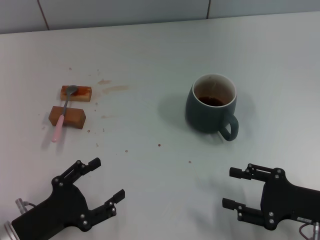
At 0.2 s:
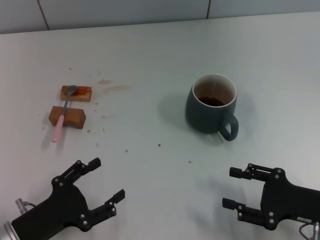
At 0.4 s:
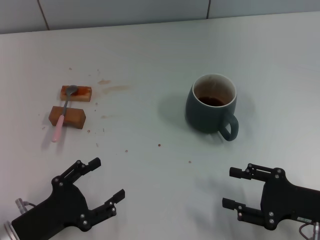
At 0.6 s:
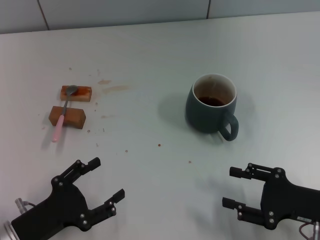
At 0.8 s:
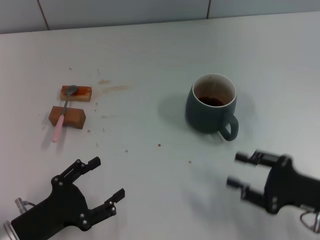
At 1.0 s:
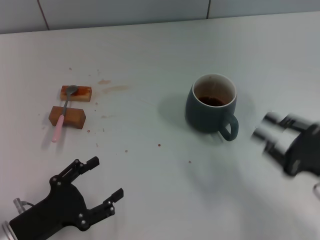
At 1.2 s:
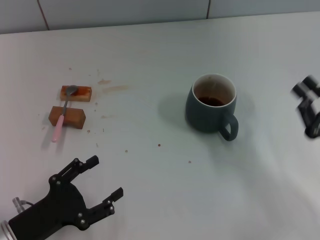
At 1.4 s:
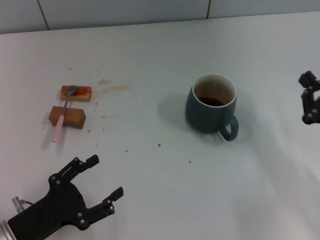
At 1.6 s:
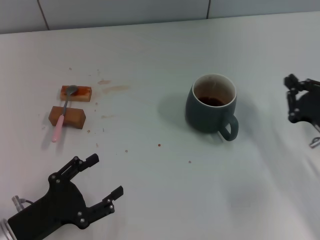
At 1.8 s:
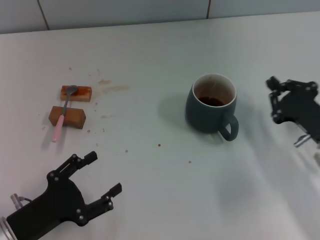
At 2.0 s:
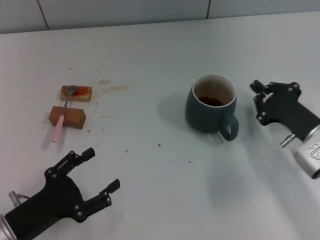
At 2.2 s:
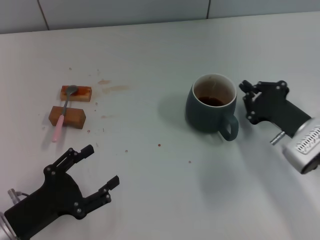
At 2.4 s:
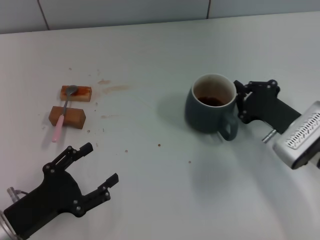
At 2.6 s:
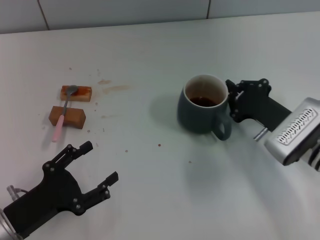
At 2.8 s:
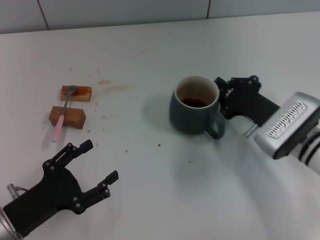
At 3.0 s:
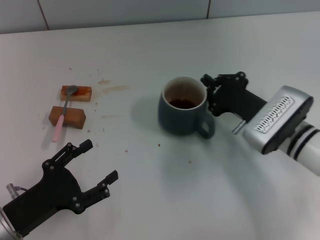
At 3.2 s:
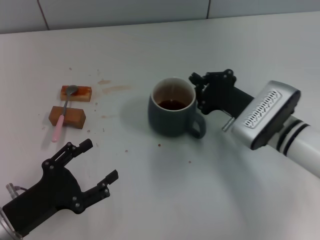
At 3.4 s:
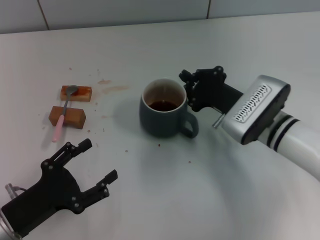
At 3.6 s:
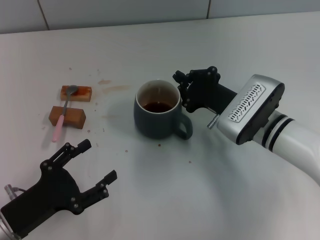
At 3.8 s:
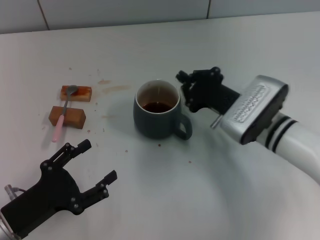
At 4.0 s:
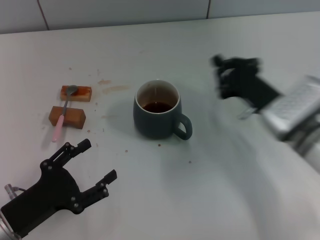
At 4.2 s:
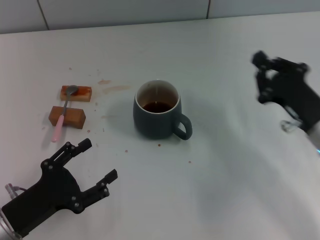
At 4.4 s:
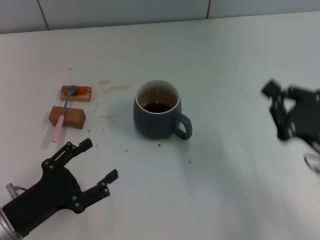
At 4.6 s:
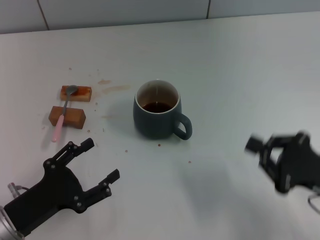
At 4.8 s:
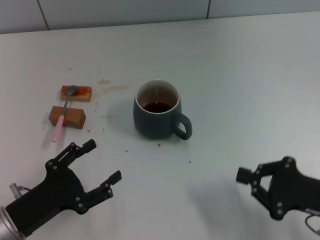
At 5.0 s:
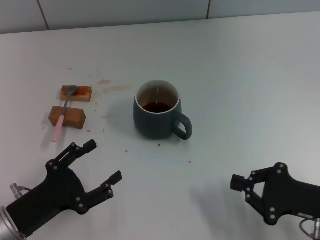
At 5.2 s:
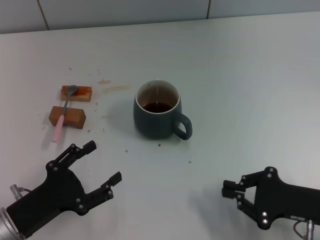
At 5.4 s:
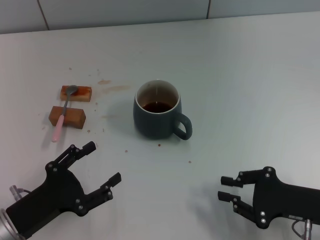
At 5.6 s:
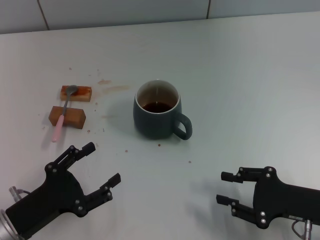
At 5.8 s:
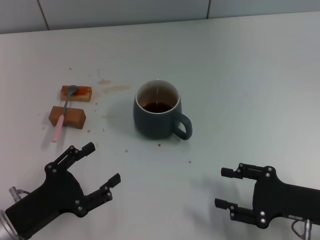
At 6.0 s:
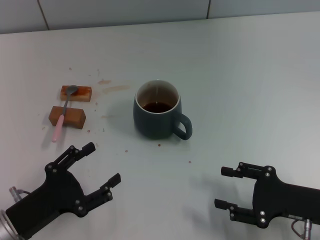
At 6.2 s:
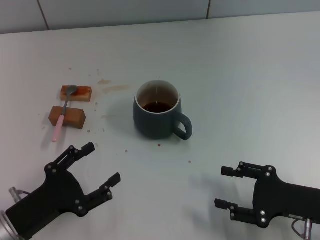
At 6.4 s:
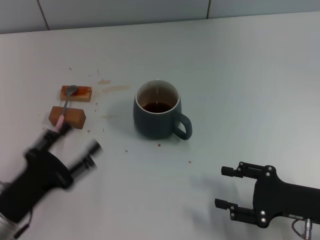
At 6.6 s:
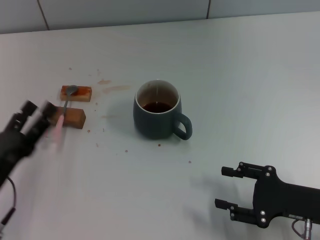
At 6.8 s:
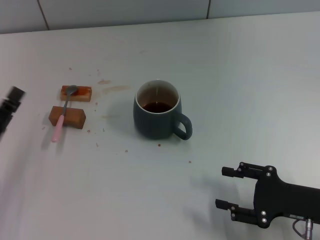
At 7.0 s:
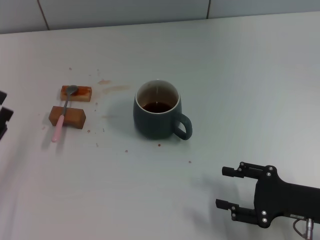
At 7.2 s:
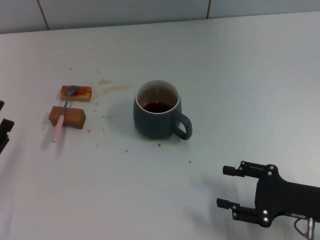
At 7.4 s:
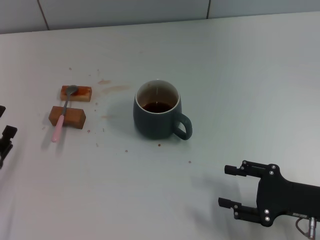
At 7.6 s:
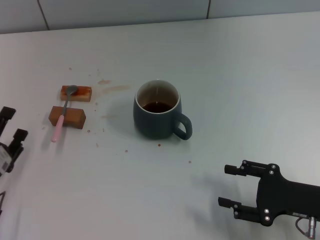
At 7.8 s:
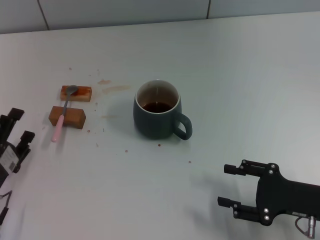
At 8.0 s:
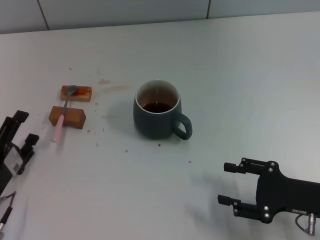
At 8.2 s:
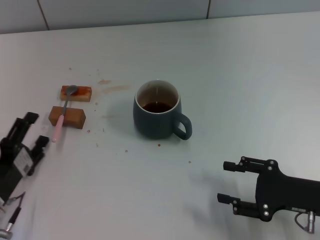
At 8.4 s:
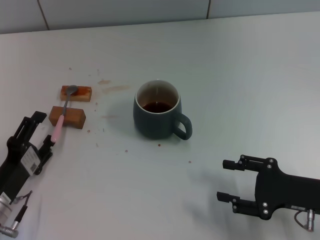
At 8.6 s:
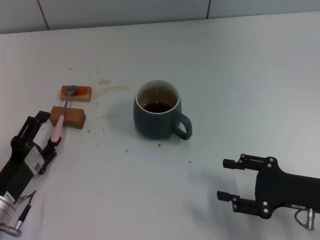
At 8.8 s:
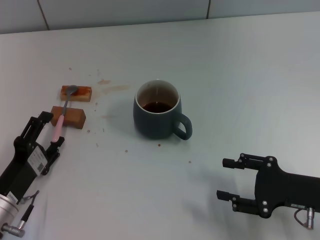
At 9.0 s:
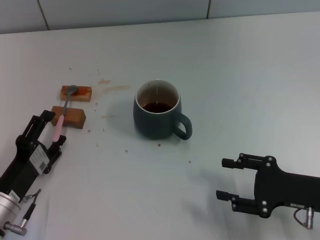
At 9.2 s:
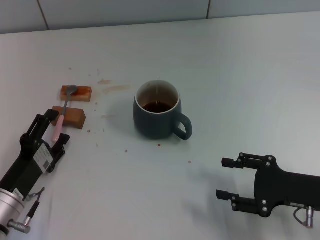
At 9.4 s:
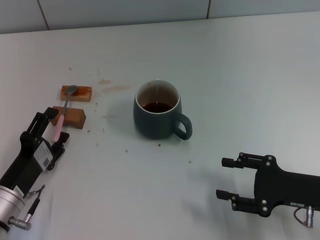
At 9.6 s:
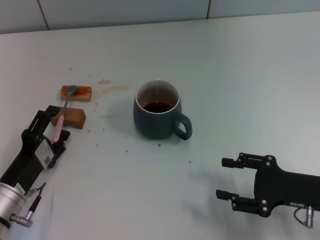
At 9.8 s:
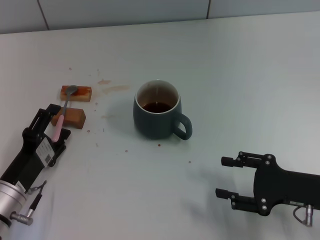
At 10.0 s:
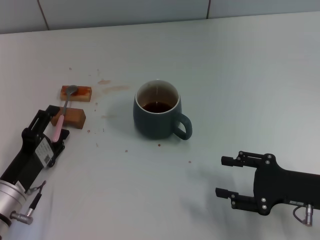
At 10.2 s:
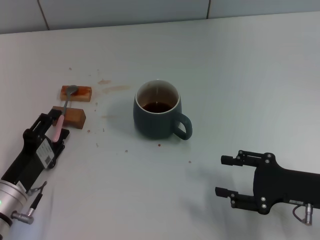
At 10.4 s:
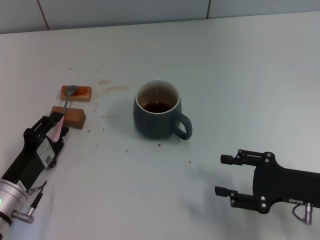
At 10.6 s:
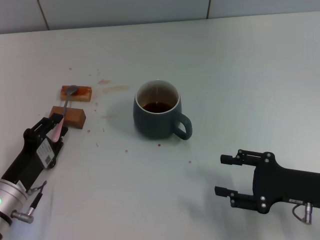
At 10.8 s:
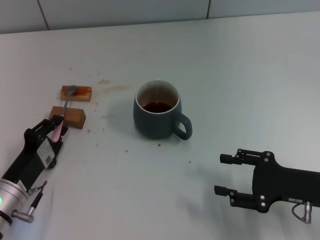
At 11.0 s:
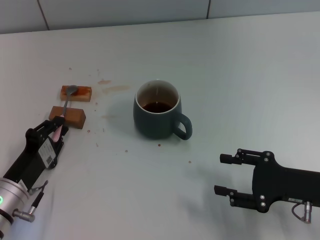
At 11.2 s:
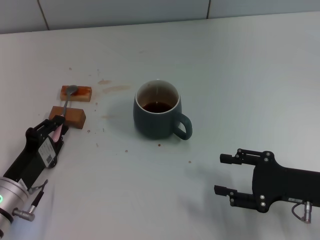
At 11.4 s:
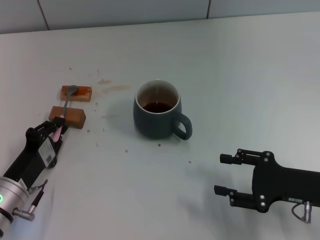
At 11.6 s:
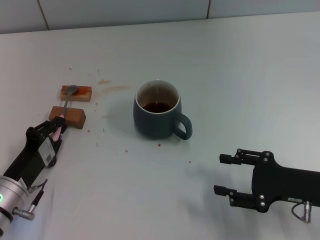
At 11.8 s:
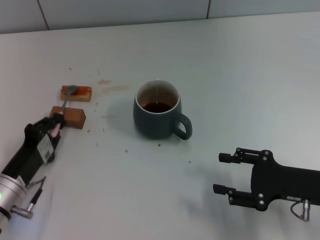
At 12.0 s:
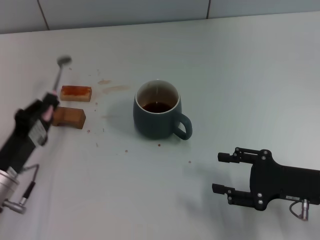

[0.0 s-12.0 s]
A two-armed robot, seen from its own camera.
Task of the whole recording: Move the grey cup to the center, lift the pink spoon, stir it three times in the cup, and put the spoon into the cup.
Step, 0.0 to 3.8 s: Move the cup with coffee to the center of view with the right gripper.
Step, 4.0 to 11.8 s: Pick up the spoon with the left gripper.
0.0 to 1.6 s: The right gripper is displaced forward by approximately 5 cm, and closes.
1.6 to 3.0 s: The right gripper shifts approximately 10 cm to the left and forward.
3.0 to 4.4 s: The right gripper heads backward and to the right, covering about 15 cm.
4.4 to 6.0 s: The right gripper opens up.
7.6 to 10.4 s: The grippers stay close to where they were, moving slightly.
10.4 to 12.0 s: The left gripper closes its fingers.

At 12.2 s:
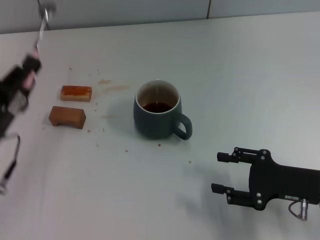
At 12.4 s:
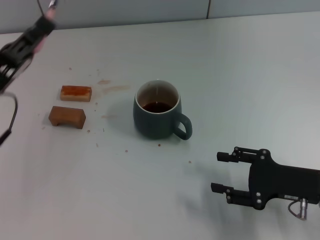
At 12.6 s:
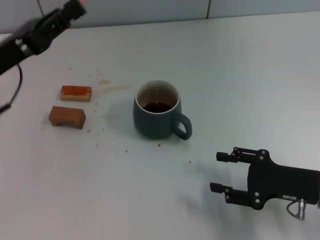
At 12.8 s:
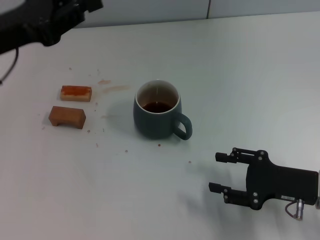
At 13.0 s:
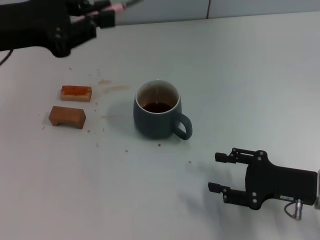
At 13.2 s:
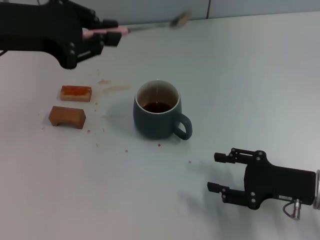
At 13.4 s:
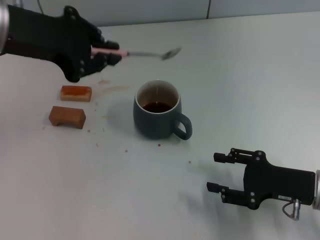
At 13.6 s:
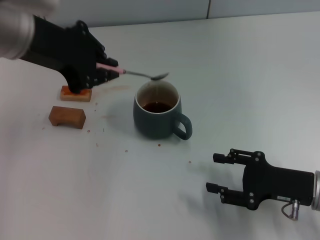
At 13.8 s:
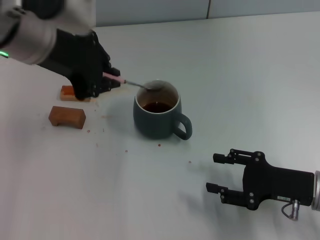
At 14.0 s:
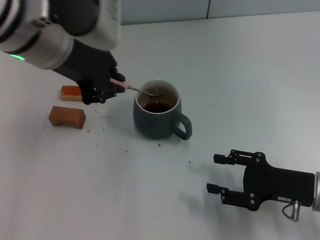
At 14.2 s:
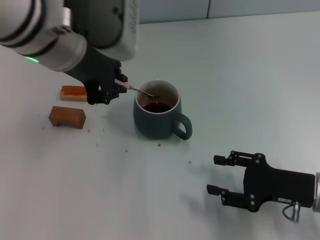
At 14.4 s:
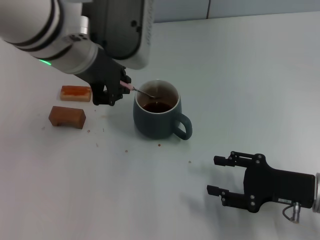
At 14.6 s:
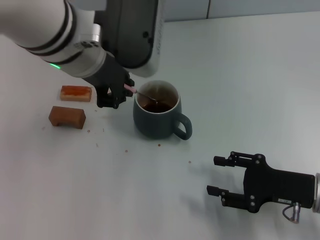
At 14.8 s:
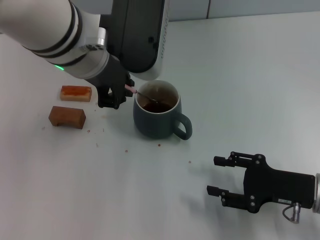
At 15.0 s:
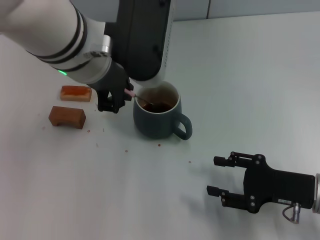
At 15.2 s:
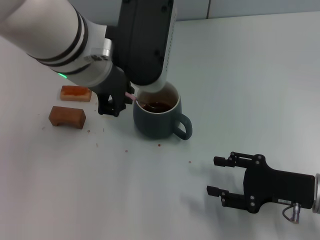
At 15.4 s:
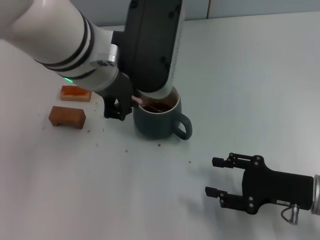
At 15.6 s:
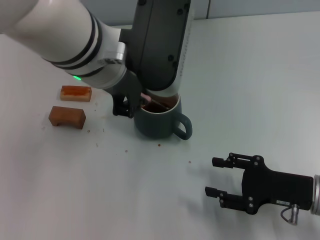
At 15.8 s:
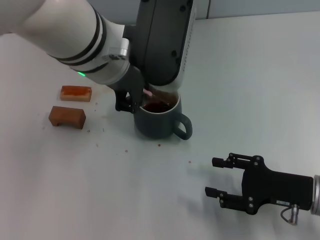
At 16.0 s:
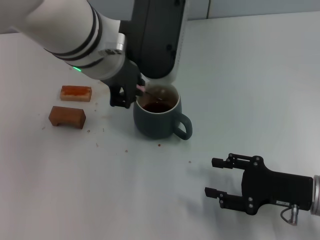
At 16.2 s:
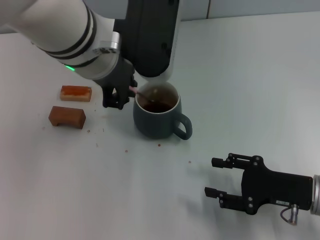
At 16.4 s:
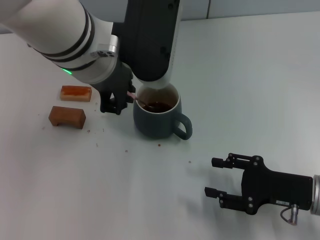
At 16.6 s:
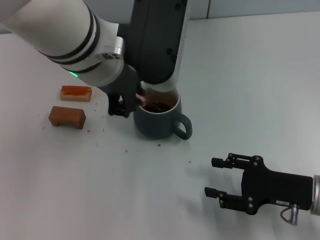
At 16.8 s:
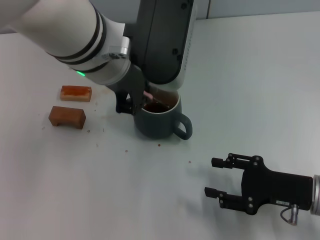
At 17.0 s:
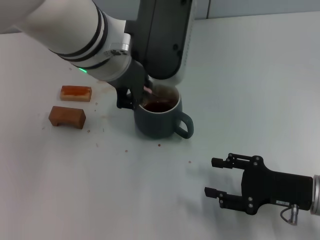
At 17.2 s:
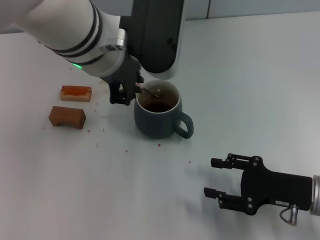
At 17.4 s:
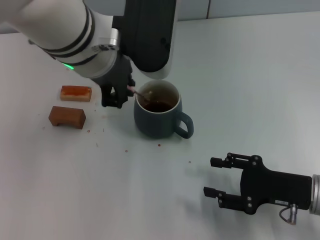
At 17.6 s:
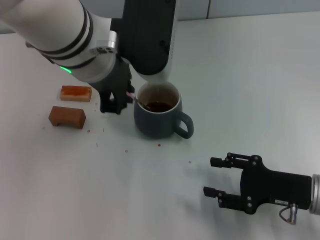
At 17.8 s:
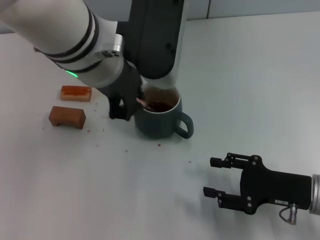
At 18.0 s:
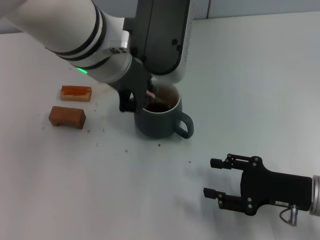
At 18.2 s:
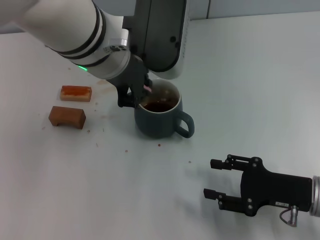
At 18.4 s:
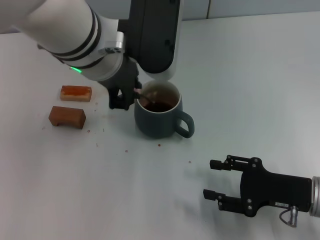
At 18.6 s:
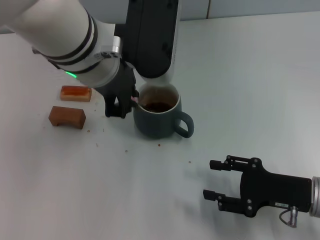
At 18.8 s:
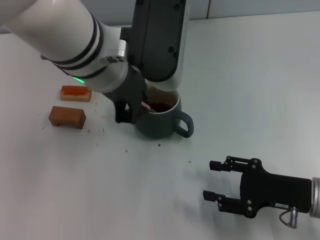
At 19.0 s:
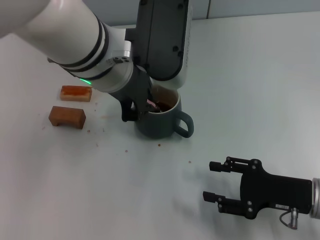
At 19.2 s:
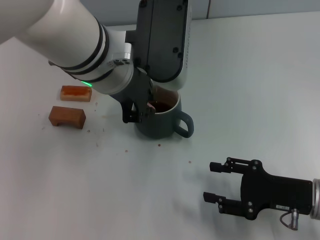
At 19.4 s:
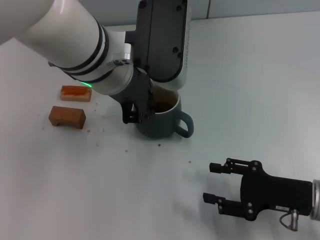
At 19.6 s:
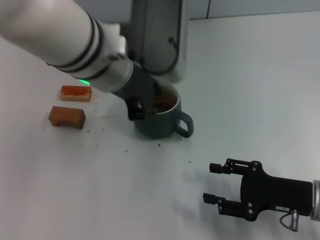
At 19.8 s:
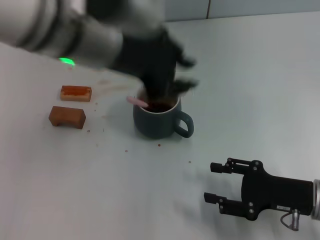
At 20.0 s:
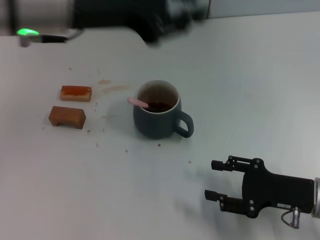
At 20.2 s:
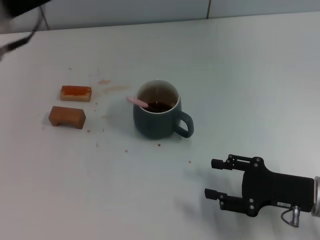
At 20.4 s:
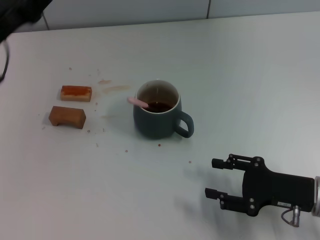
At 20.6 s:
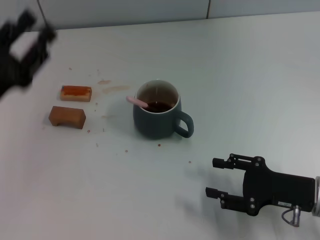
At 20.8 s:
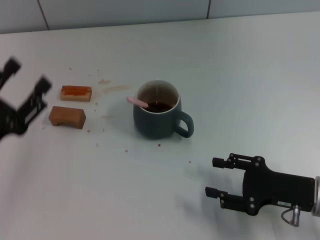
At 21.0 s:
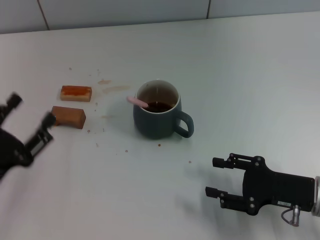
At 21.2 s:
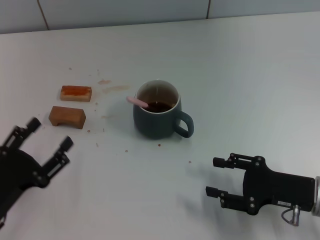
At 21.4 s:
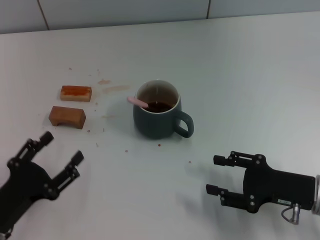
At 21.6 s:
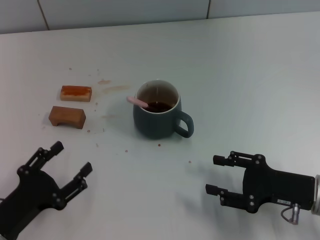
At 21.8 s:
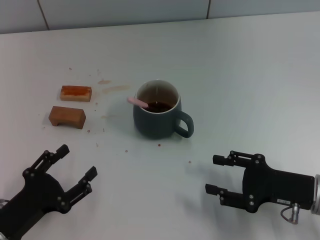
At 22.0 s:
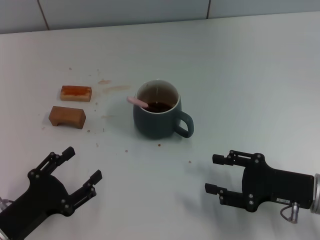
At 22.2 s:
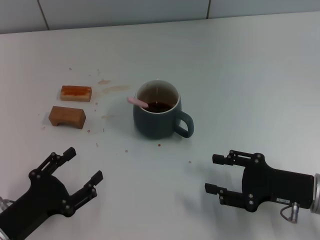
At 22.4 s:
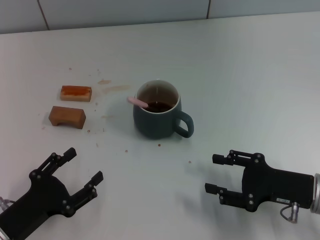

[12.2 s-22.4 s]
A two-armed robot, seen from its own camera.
Task of the whole recording: Move the grey cup to the center, lift the pink spoon, stir it three times in the cup, and put the spoon into the cup.
Step, 12.2 to 19.8 s: Stir the coffee in the cup with the left gripper.
12.2 to 13.6 s: The left gripper shifts approximately 25 cm upward and forward.
13.6 to 15.2 s: The left gripper heads to the right, covering about 10 cm.
15.2 to 19.4 s: The grippers stay close to where they were, moving slightly.
19.4 to 21.0 s: The left gripper is displaced to the left, downward and backward by approximately 30 cm, and opens up.
21.0 to 22.4 s: The left gripper shifts by approximately 5 cm.
